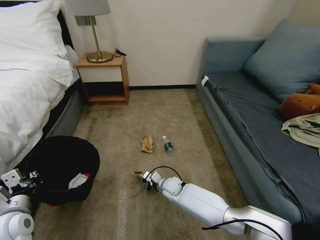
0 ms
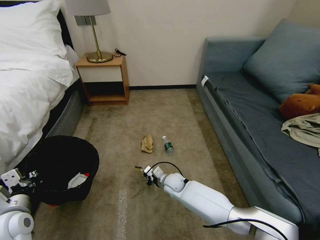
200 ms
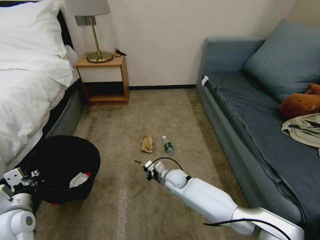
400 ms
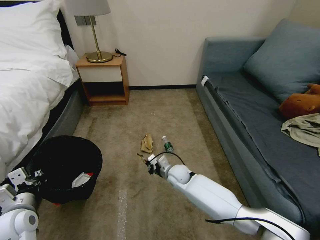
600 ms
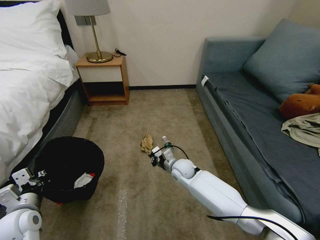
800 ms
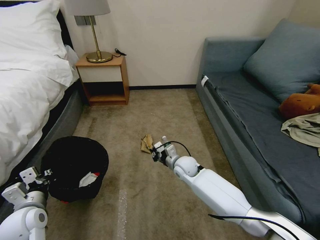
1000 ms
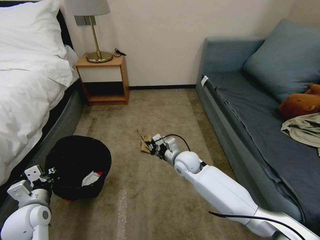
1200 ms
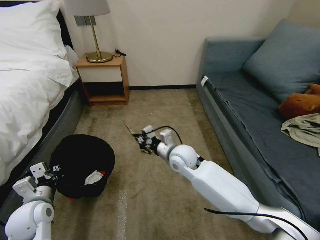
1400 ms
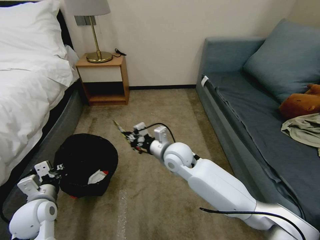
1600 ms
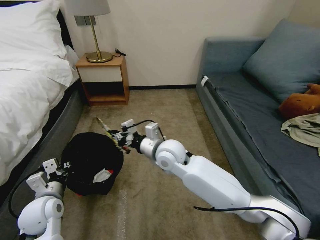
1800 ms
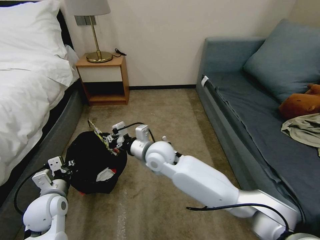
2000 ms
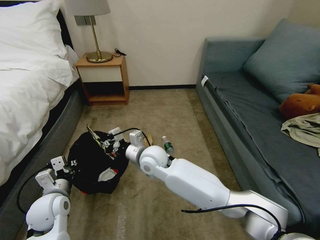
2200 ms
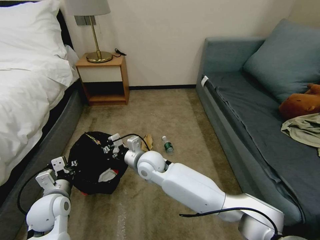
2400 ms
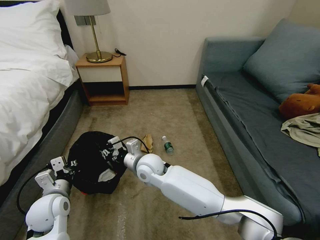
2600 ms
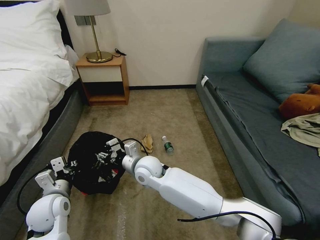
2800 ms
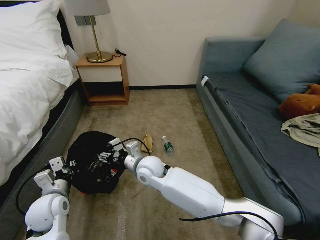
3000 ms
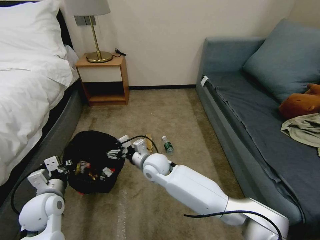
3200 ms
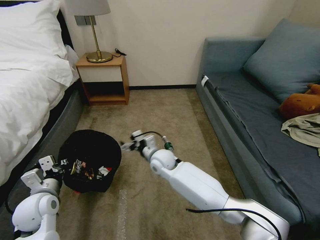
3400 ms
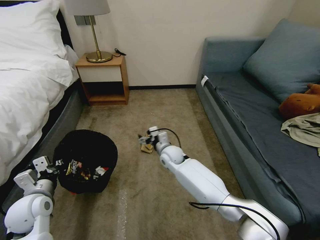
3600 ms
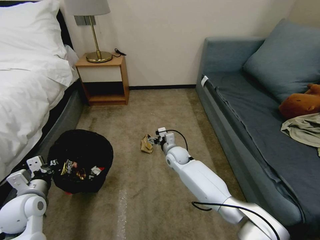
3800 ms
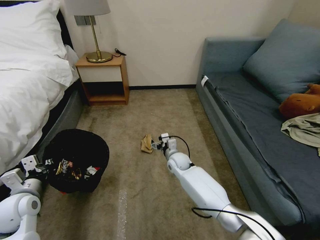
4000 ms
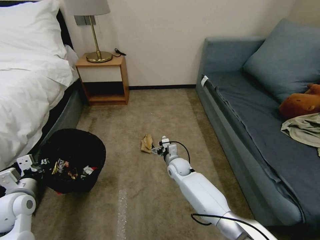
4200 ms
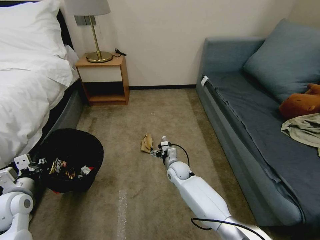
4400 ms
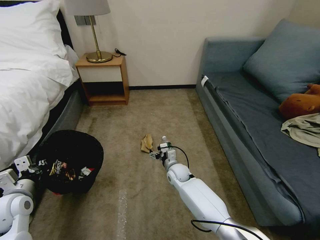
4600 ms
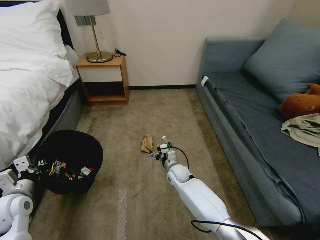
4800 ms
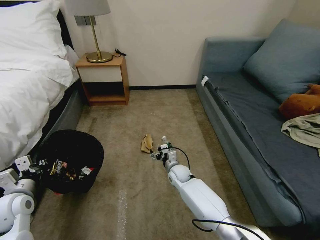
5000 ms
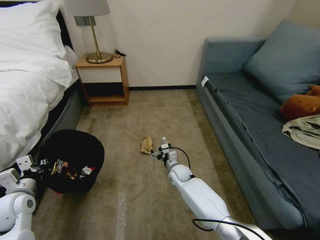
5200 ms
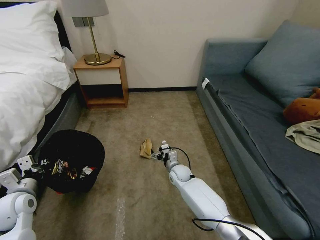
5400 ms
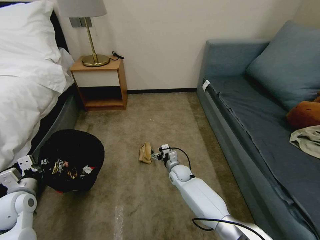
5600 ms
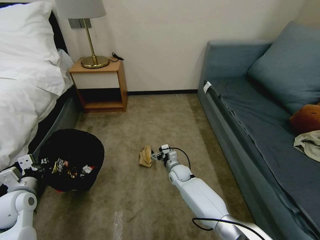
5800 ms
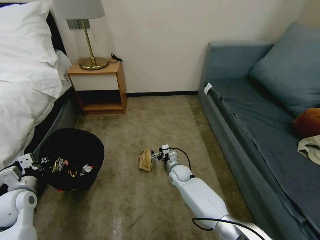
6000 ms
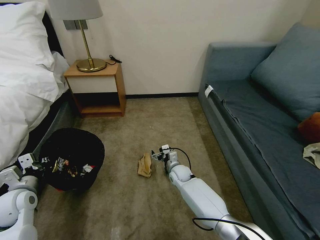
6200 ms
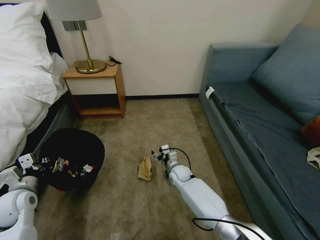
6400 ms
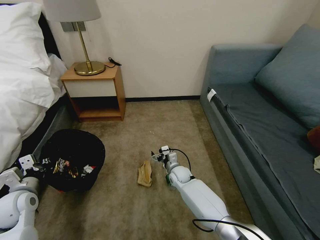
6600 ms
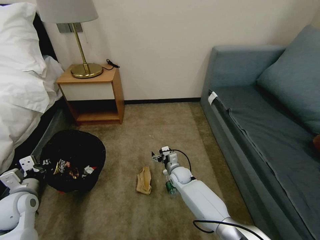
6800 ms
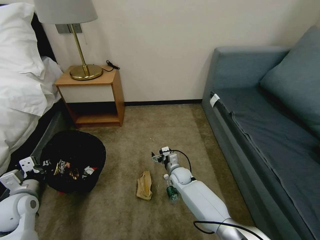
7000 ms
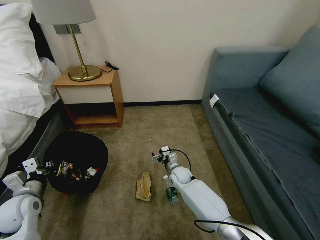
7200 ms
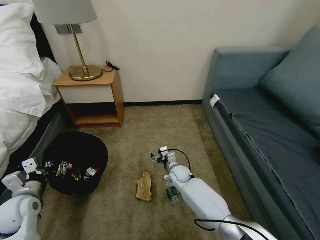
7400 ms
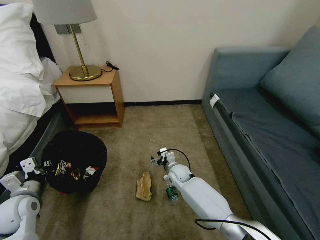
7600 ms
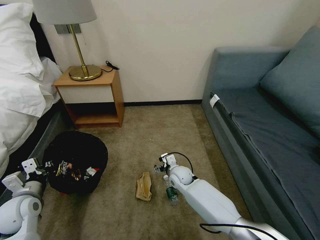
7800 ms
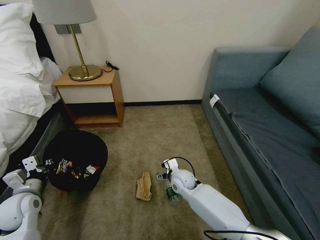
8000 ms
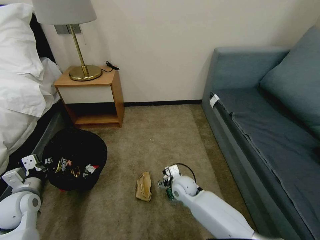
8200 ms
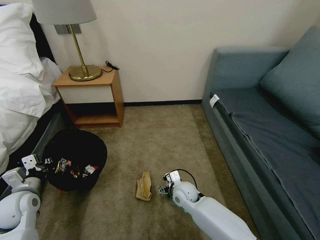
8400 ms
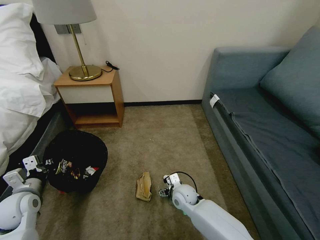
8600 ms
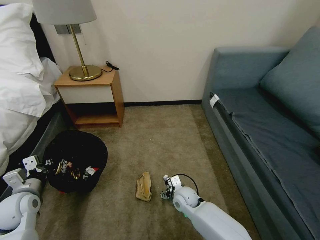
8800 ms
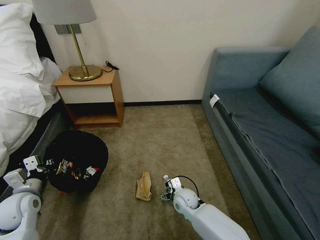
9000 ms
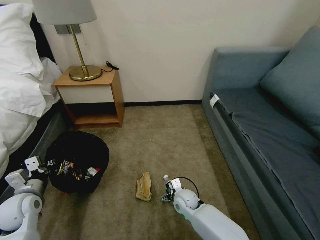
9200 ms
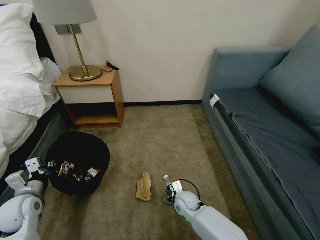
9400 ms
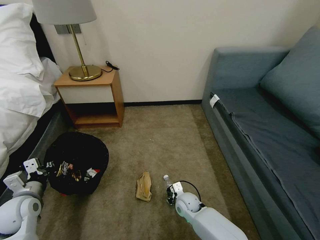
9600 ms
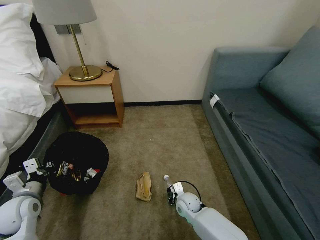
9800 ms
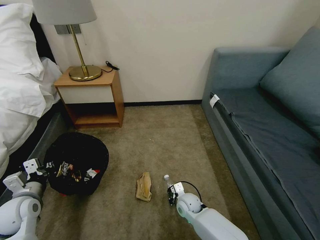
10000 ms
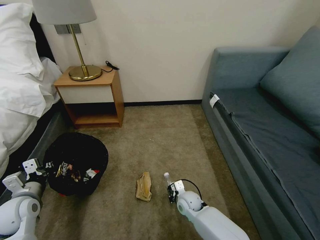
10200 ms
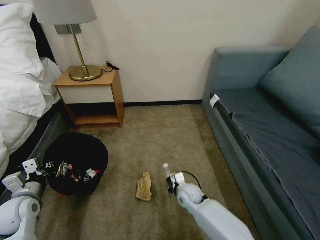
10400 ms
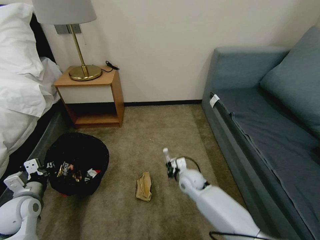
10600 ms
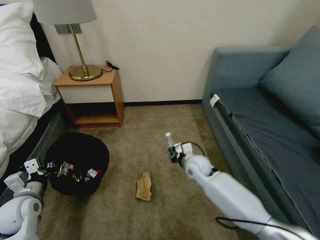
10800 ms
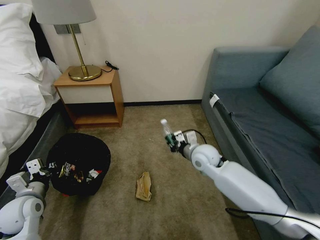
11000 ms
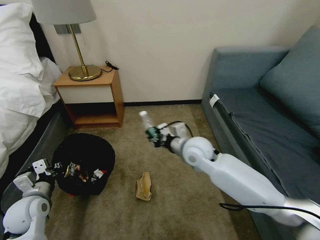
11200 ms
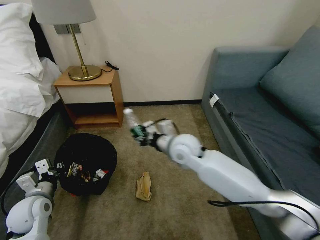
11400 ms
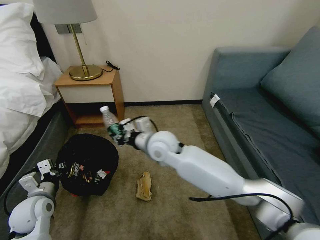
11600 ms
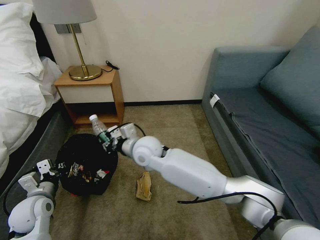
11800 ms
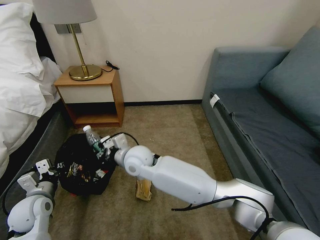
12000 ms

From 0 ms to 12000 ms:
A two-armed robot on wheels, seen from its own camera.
Task of the whole recording: Pick up the trash bin, then pick up the garbage on the floor and place it into the trash bin.
From 0 ms to 1600 ms: The right gripper heads upward, covering some 25 cm. The left gripper moves roughly 5 cm.
From 1600 ms to 3000 ms: The right gripper is displaced to the left and downward by roughly 10 cm, and opens its fingers.
From 3000 ms to 4400 ms: The left gripper moves to the left, approximately 10 cm. Meanwhile the right gripper heads downward, to the right and forward, covering approximately 20 cm, and opens its fingers.
From 7600 ms to 9000 ms: The right gripper travels backward by some 10 cm.
From 9000 ms to 10400 ms: The right gripper closes.
From 10400 ms to 12000 ms: The right gripper shifts roughly 30 cm upward and to the left.

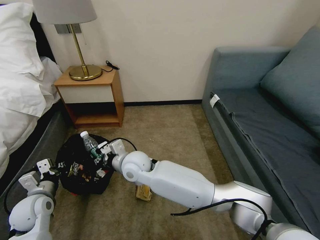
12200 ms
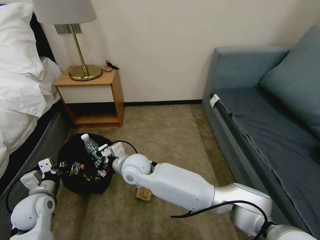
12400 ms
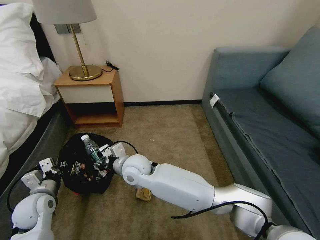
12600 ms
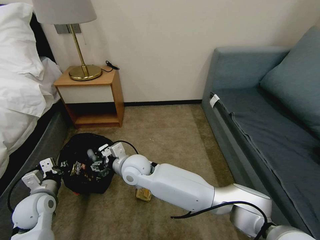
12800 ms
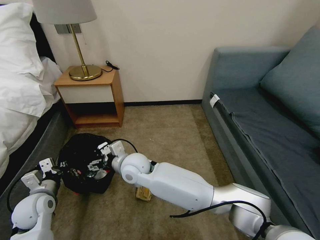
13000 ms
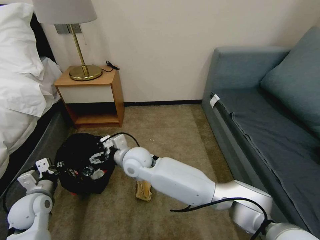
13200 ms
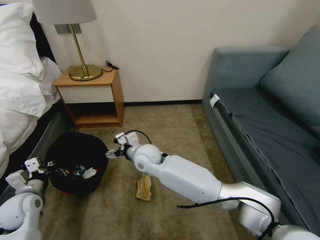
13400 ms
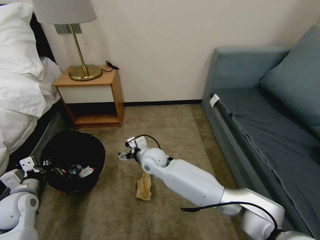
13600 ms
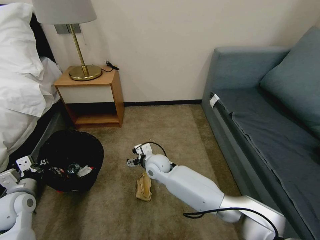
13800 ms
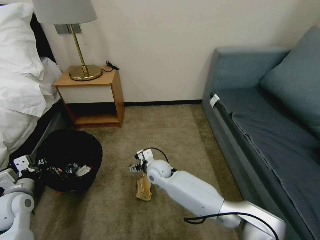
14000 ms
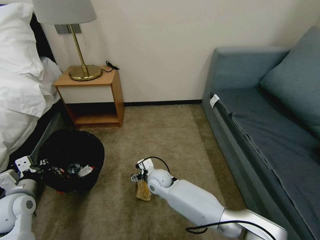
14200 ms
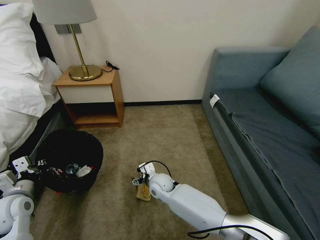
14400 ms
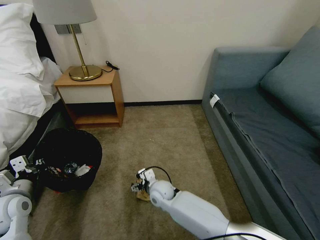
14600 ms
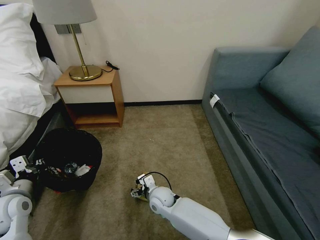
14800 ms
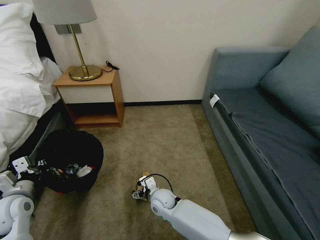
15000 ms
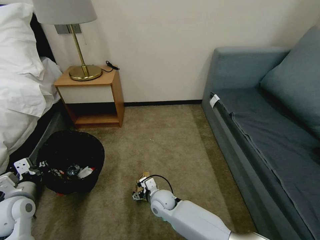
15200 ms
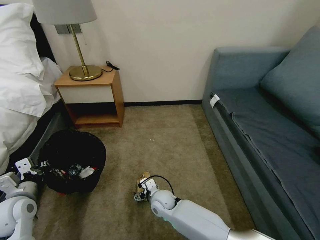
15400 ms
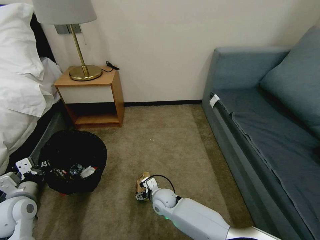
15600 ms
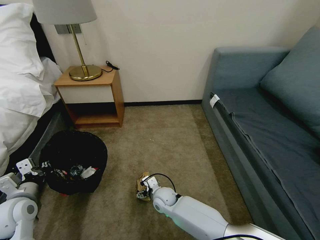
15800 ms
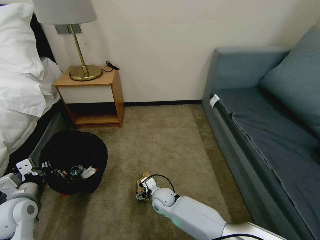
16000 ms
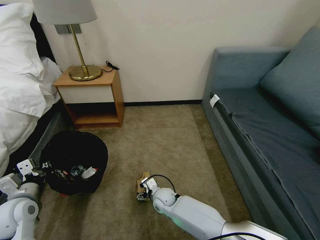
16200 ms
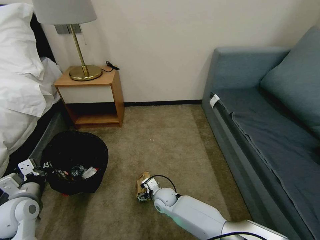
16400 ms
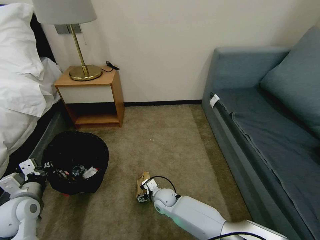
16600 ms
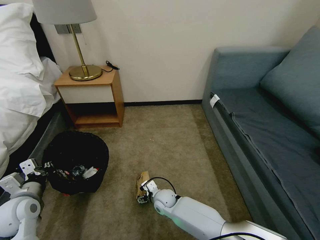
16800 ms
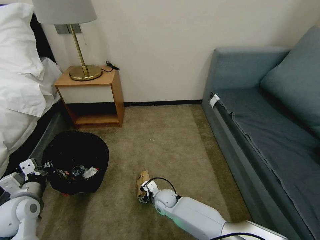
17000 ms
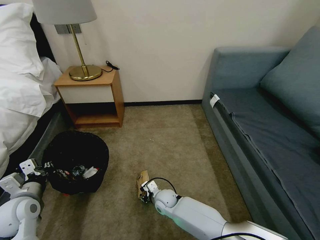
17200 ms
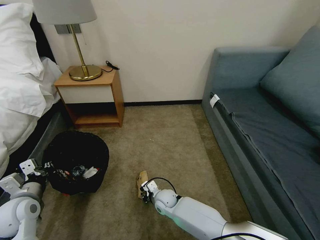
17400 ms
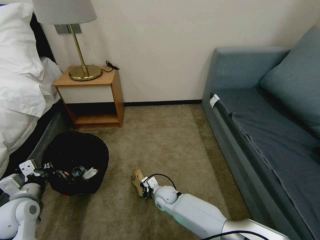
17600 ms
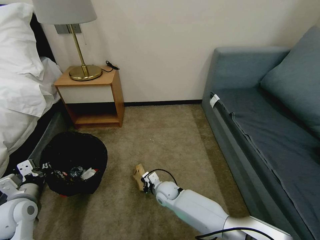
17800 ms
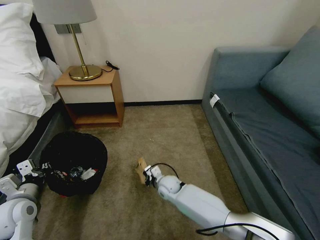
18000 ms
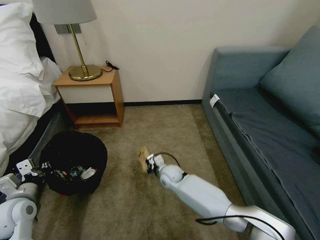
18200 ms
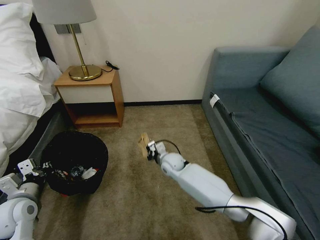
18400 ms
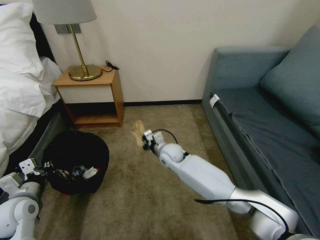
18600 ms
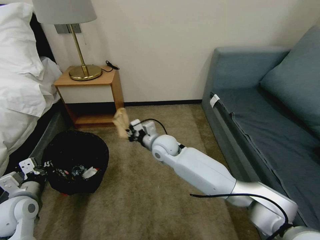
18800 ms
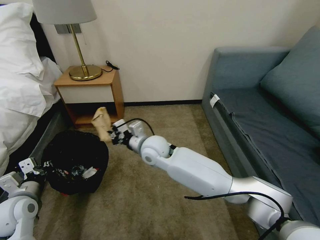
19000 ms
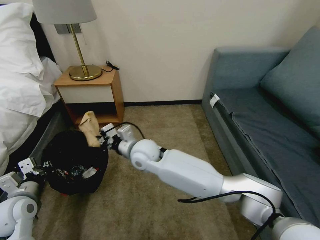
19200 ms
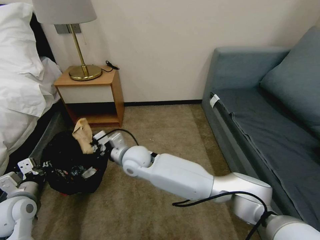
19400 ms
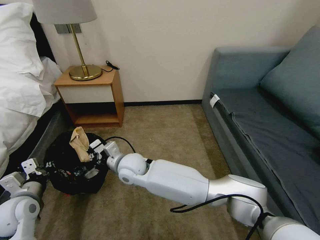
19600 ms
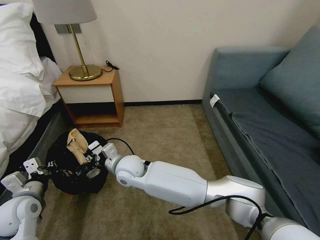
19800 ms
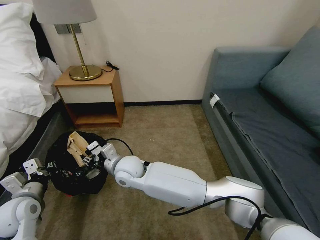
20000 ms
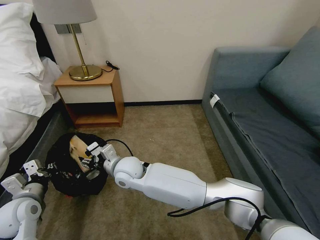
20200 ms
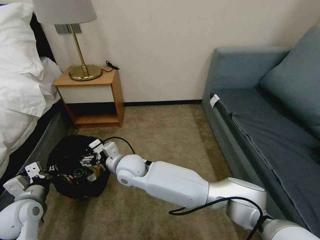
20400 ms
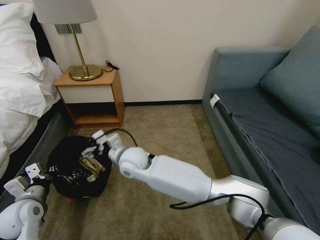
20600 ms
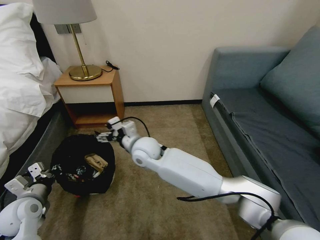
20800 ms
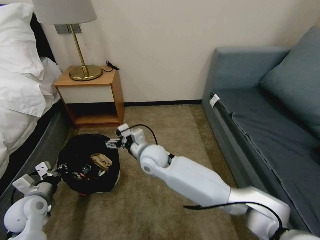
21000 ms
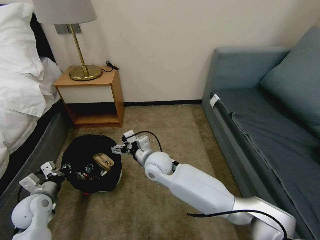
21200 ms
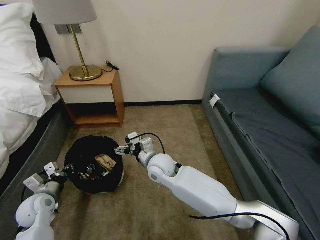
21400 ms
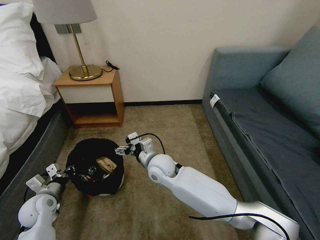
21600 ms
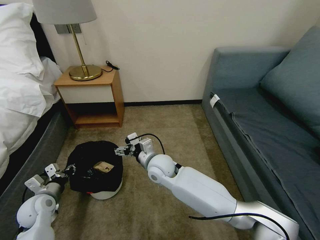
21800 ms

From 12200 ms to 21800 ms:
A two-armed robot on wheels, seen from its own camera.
Task of the whole recording: Pick up the trash bin, then pick up the garbage on the floor and place it into the trash bin.
From 12200 ms to 13800 ms: The right gripper shifts about 10 cm downward and to the right, and opens up.
From 13800 ms to 15400 ms: The right gripper heads downward and backward, covering about 15 cm.
From 15400 ms to 17000 ms: The grippers move only a little.
From 17000 ms to 18600 ms: The right gripper travels upward and forward by roughly 20 cm, and closes.
From 18600 ms to 20200 ms: The right gripper heads to the left and backward, covering about 20 cm, and opens its fingers.
From 20200 ms to 21800 ms: The right gripper moves to the right, approximately 10 cm, and opens its fingers; the left gripper heads downward, covering approximately 5 cm.
